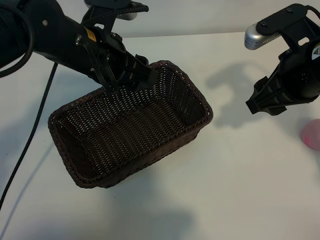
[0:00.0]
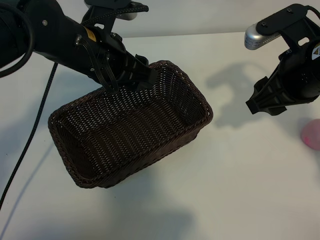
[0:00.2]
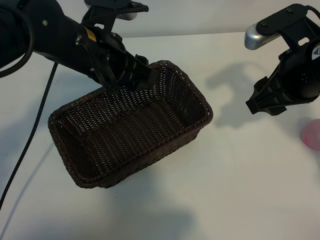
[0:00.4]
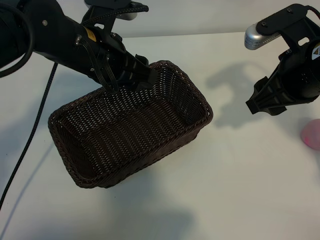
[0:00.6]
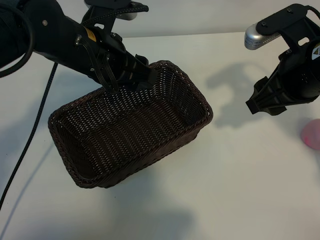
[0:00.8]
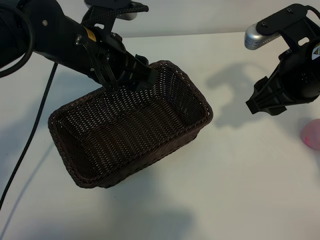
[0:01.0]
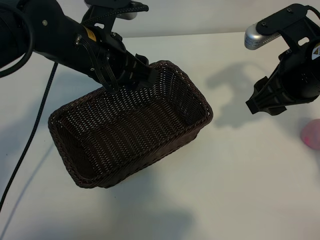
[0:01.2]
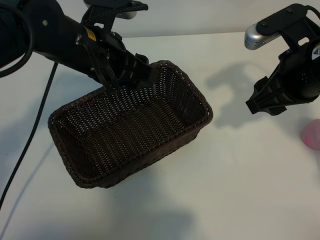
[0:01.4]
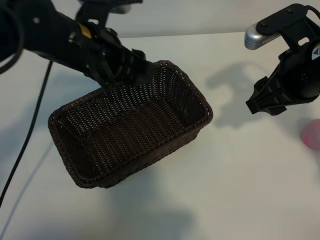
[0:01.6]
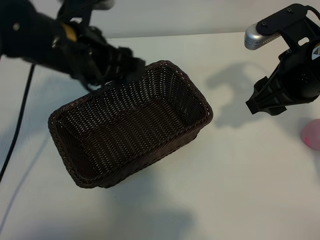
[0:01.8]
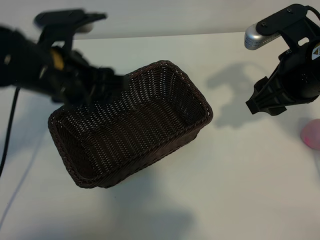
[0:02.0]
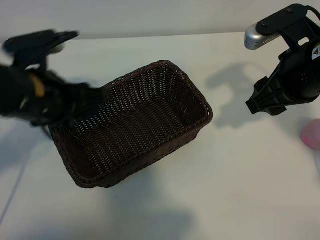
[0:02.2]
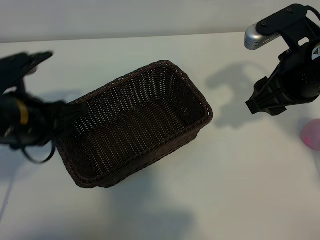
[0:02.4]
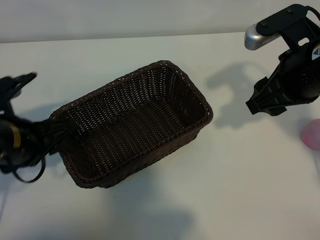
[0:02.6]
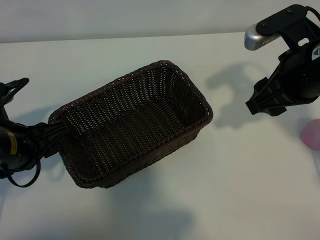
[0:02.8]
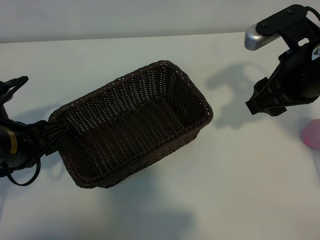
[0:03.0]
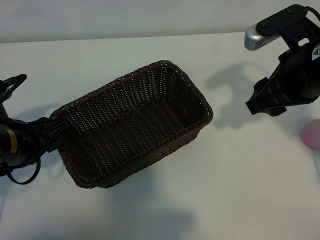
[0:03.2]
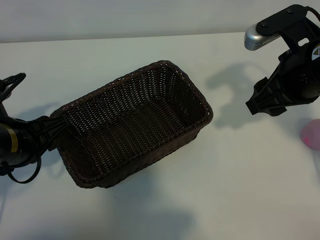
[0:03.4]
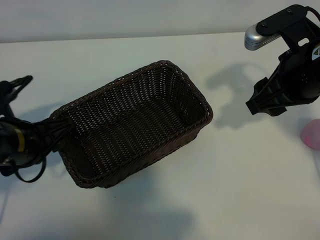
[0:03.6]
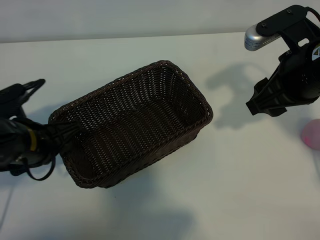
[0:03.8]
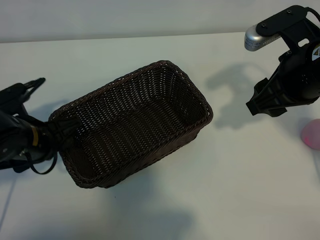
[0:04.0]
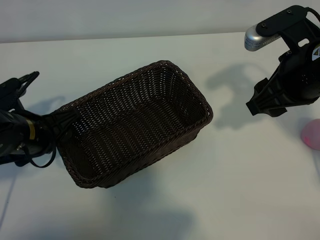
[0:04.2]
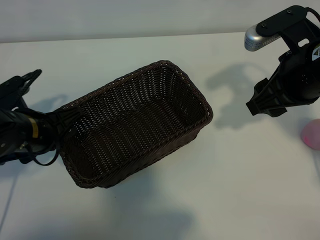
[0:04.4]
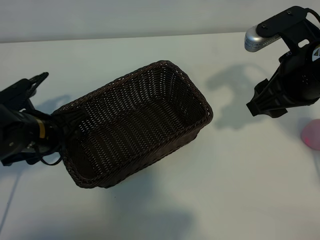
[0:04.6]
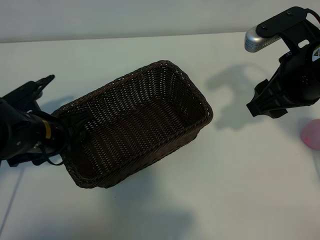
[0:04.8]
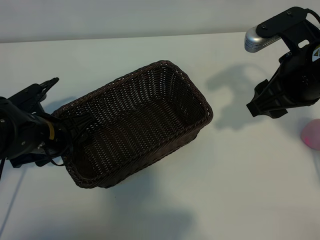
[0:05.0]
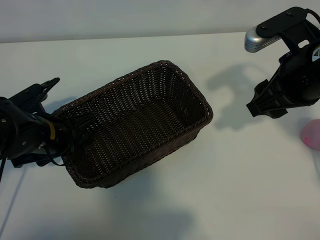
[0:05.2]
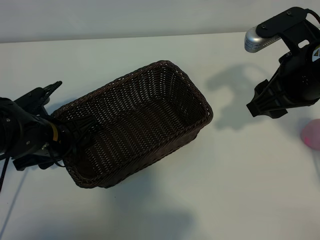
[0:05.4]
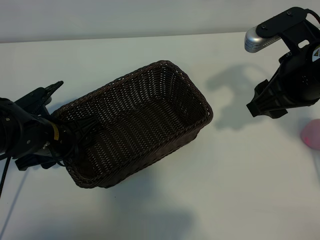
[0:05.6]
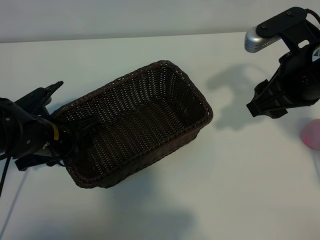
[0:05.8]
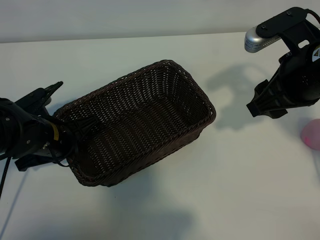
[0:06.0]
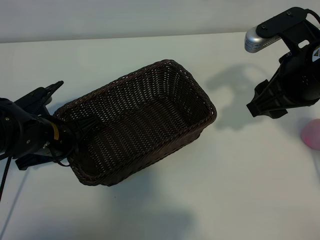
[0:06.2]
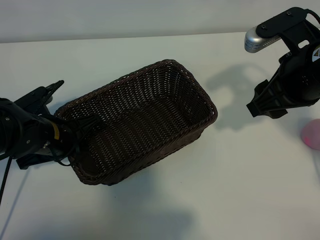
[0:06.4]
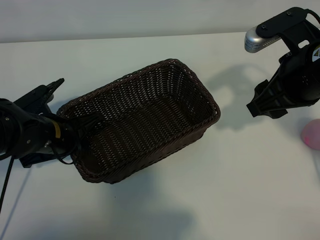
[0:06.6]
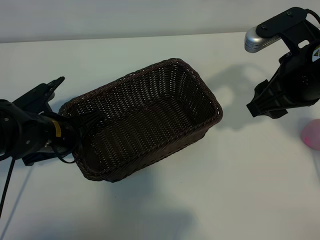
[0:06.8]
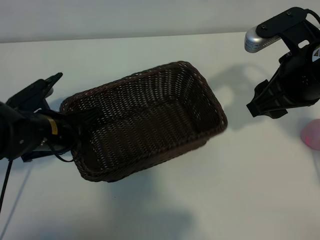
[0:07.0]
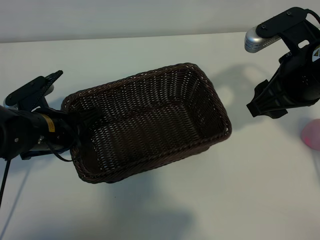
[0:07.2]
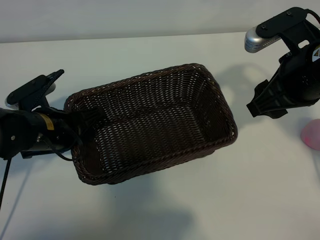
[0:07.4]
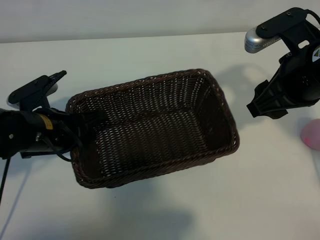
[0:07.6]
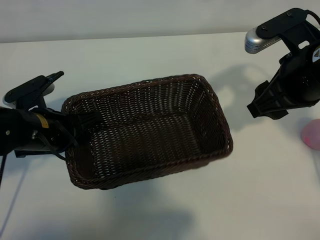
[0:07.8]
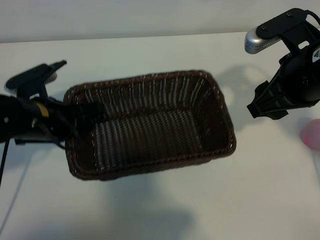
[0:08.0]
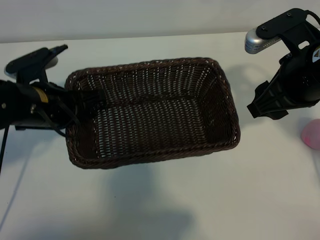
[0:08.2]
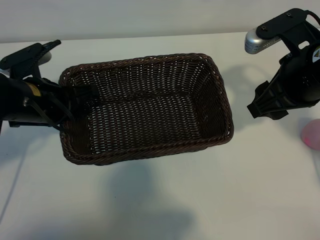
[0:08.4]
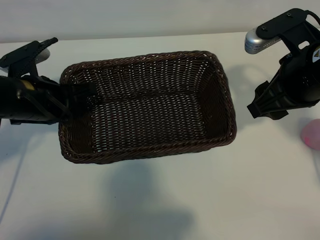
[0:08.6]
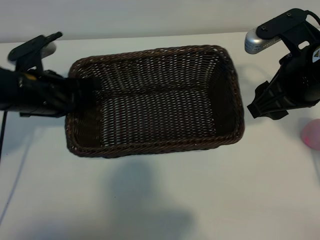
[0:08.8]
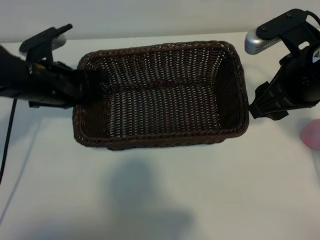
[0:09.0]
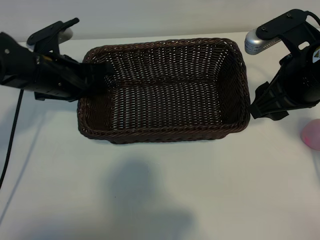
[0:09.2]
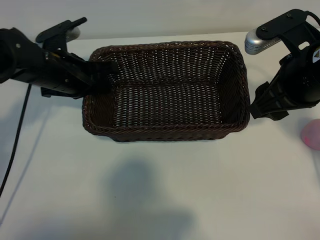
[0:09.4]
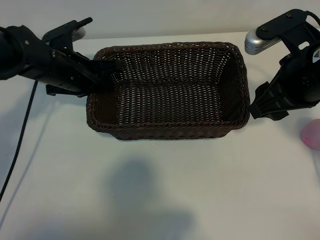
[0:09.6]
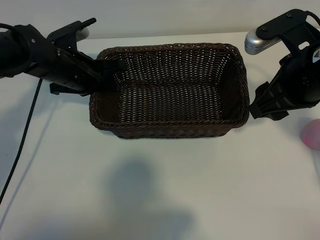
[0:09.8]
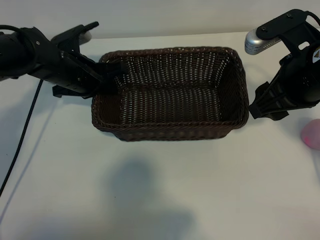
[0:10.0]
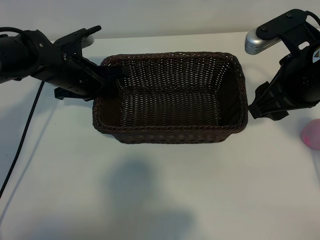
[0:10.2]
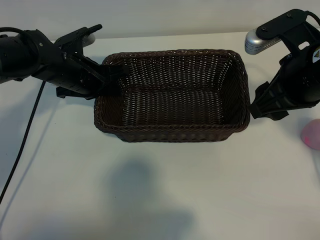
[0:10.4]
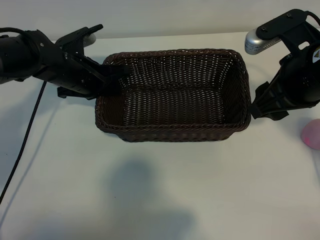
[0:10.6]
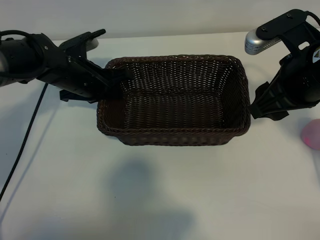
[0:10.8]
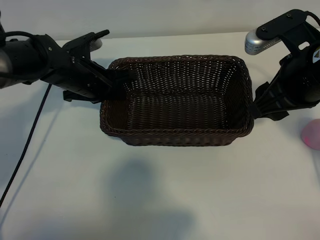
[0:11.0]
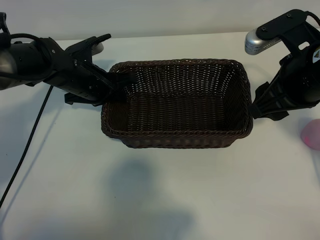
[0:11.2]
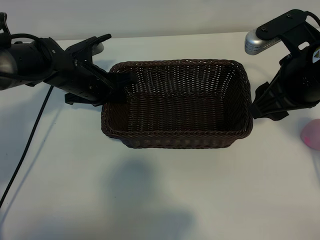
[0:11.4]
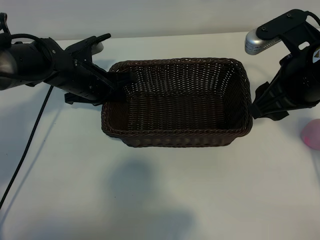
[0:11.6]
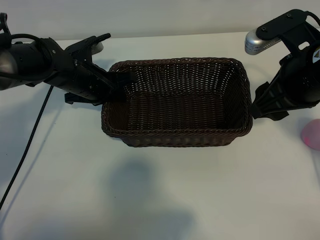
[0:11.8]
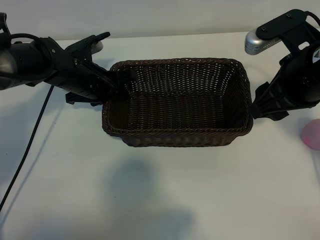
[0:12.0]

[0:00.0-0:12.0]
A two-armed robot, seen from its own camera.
Task of the whole recording: pick up the peach and put it into the basket.
Step, 0:01.6 to 0:06.6: Grasp the basket with left gripper.

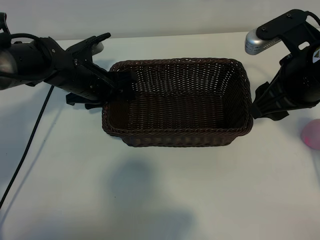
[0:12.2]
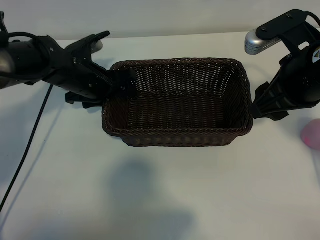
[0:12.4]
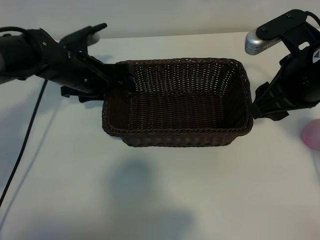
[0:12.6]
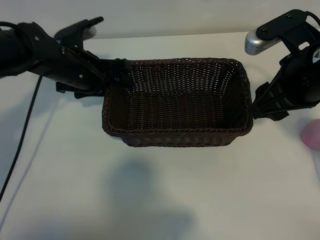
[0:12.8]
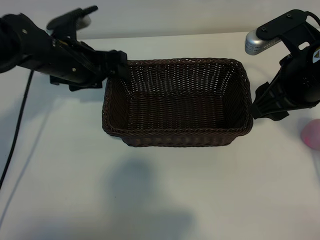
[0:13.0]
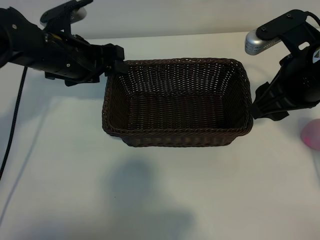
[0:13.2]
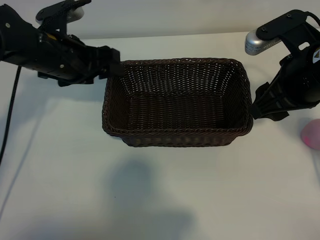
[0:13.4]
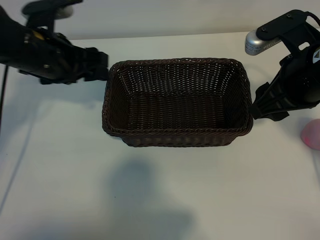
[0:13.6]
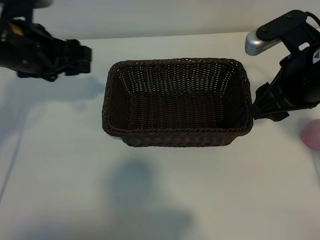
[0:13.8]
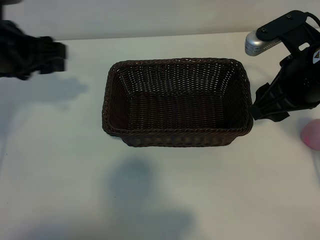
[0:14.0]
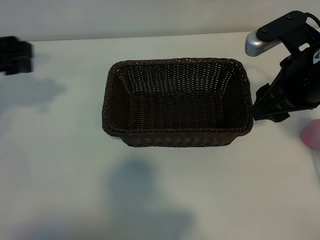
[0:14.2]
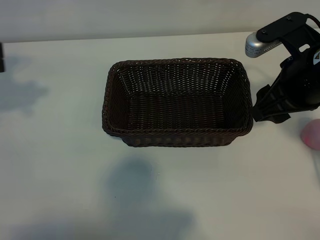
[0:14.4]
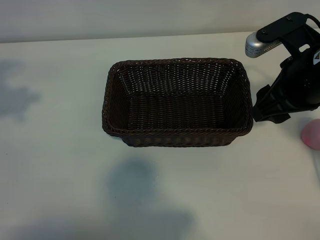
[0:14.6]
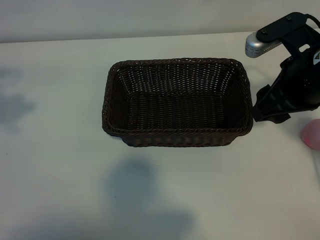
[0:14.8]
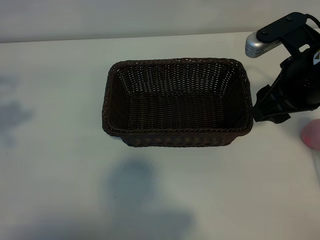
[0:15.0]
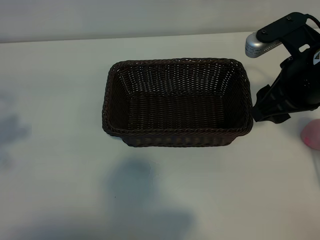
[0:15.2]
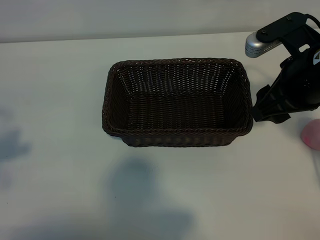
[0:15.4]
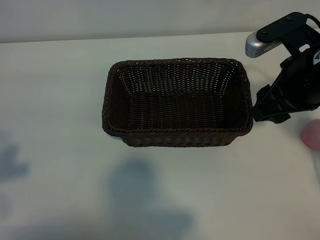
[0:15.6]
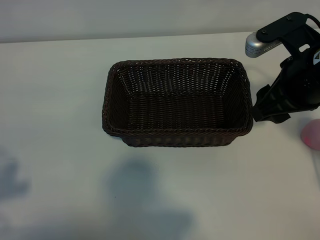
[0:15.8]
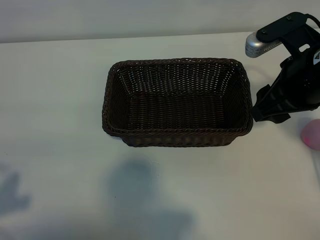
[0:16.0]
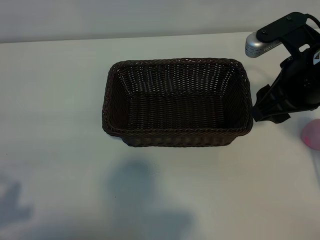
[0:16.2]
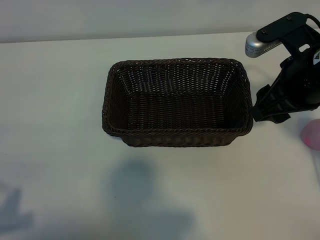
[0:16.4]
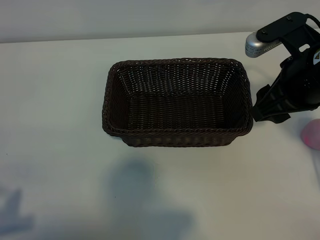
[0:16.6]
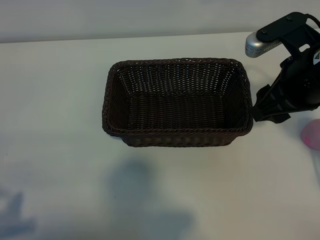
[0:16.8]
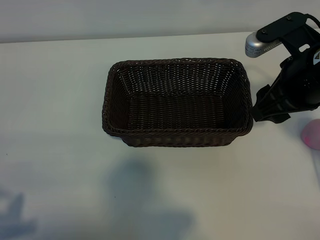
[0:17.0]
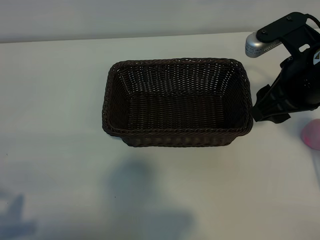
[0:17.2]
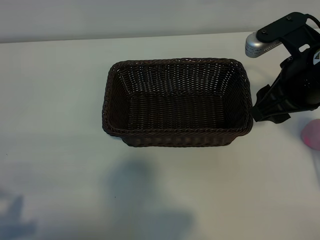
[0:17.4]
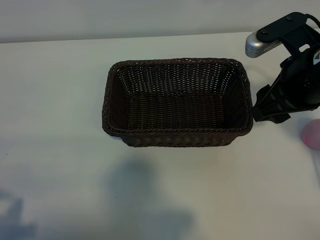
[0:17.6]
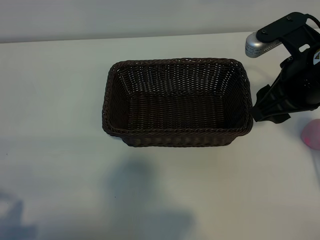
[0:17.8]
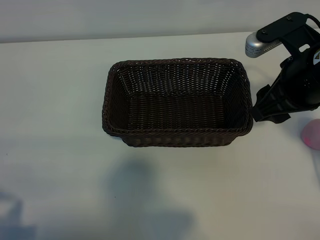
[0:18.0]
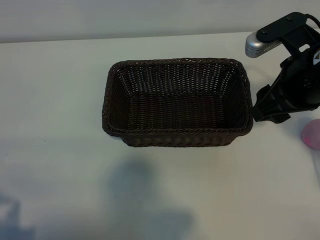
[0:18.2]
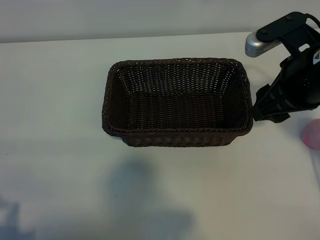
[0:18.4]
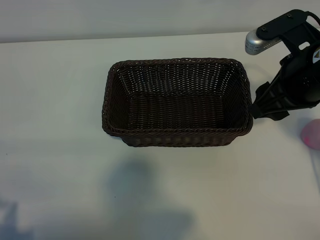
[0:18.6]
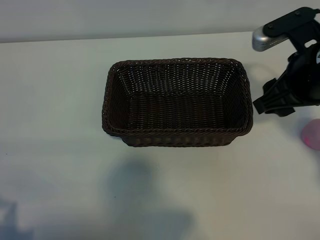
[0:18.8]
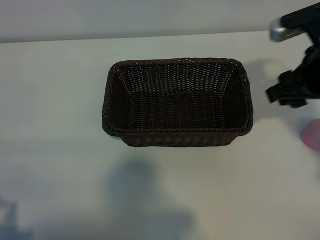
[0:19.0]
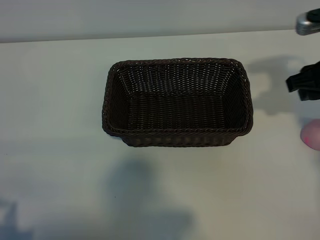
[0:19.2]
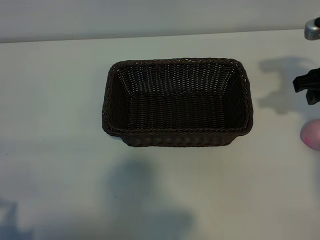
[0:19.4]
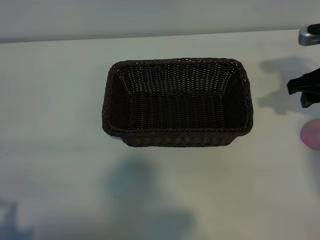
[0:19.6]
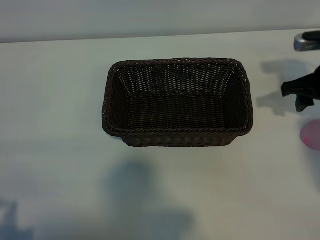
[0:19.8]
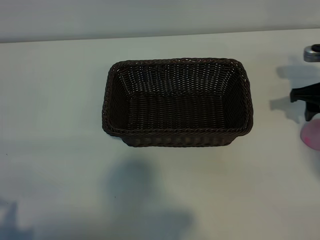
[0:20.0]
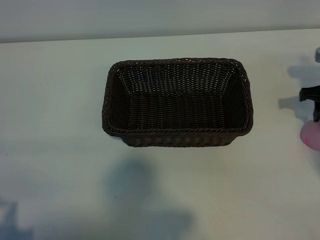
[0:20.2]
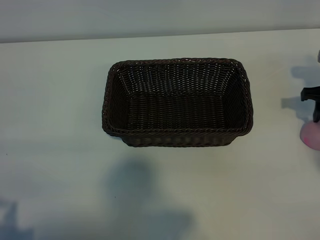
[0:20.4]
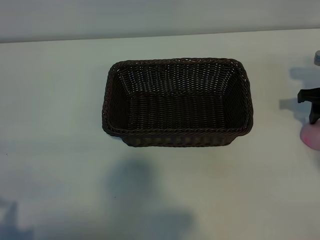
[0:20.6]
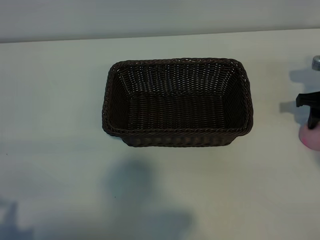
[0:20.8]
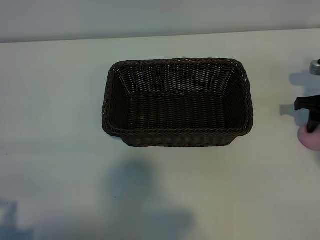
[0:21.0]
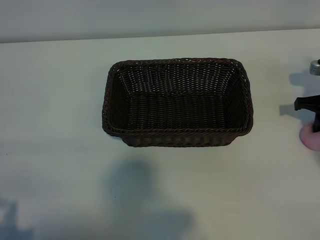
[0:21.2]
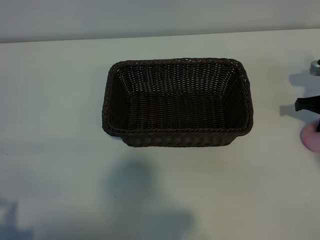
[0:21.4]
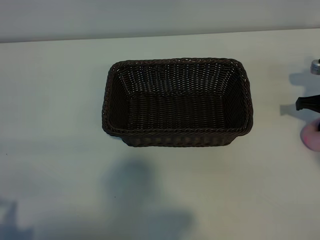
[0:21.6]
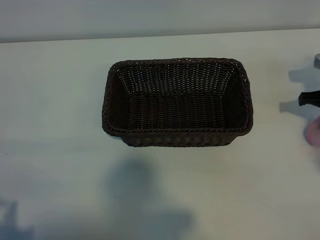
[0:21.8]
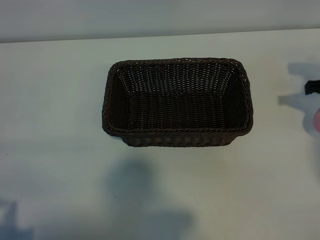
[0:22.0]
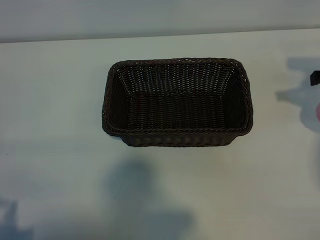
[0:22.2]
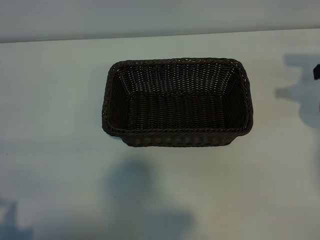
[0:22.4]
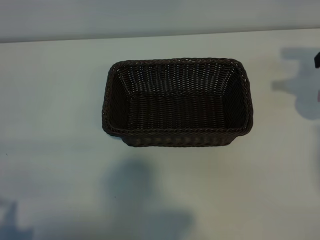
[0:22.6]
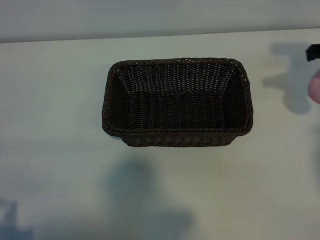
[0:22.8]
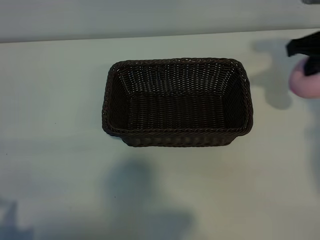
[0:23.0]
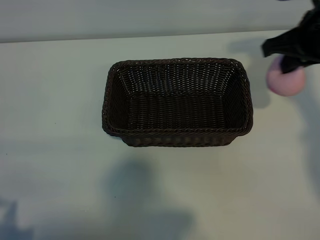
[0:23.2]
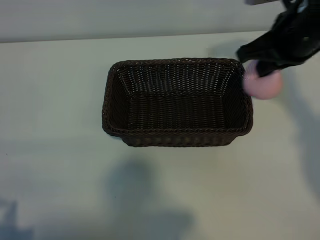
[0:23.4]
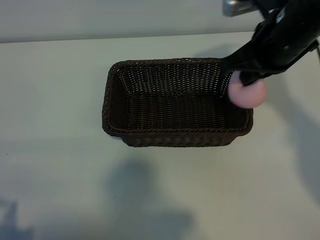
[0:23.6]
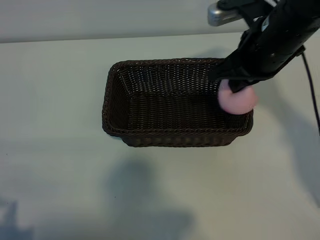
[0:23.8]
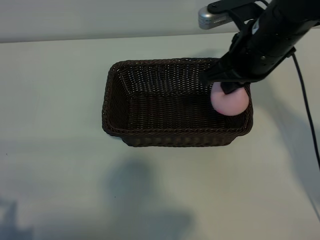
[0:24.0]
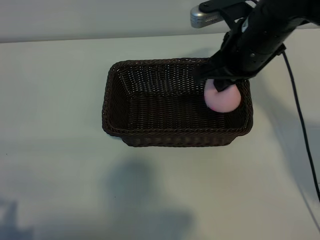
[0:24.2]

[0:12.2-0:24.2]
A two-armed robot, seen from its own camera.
Task of the whole recording: pick up the peach and put it into the basket.
Step, 0:13.4 to 0:21.6: Grasp the peach with right gripper.
